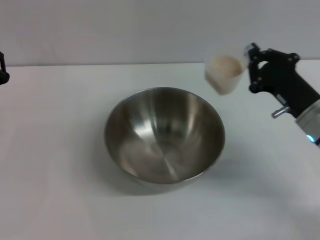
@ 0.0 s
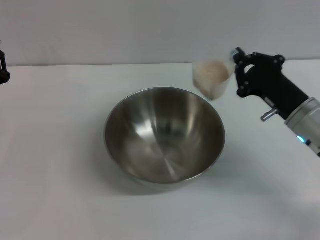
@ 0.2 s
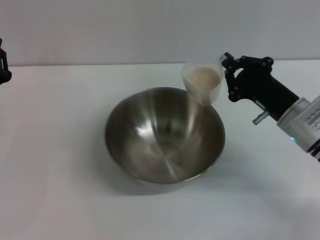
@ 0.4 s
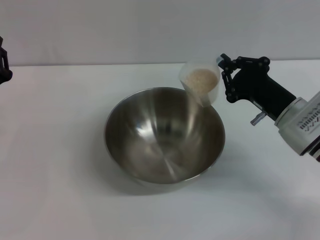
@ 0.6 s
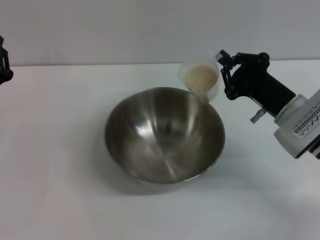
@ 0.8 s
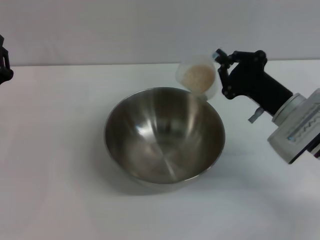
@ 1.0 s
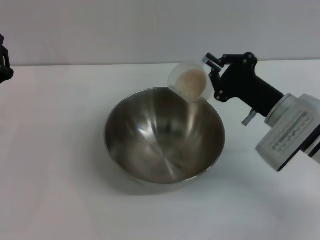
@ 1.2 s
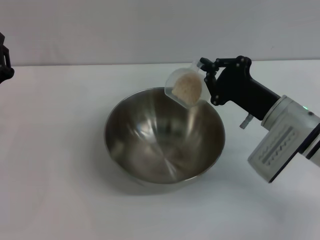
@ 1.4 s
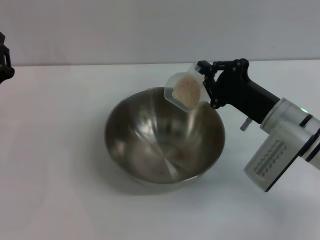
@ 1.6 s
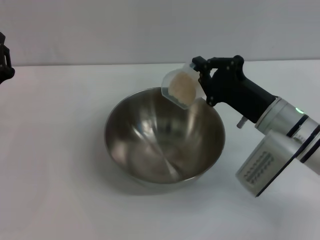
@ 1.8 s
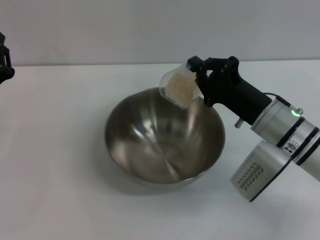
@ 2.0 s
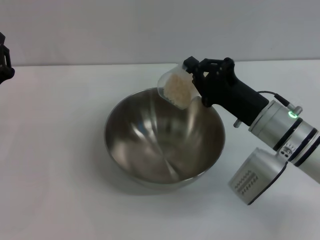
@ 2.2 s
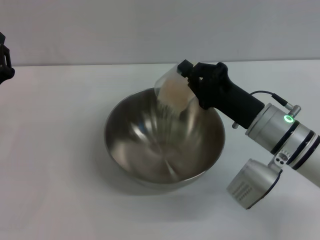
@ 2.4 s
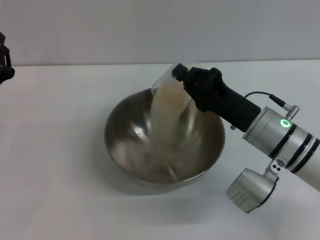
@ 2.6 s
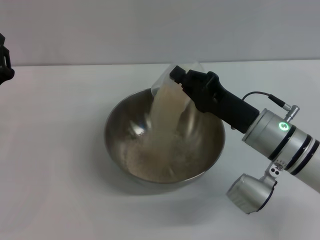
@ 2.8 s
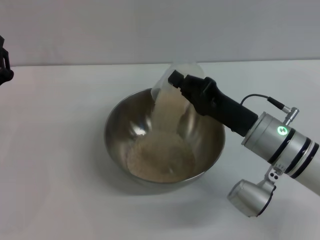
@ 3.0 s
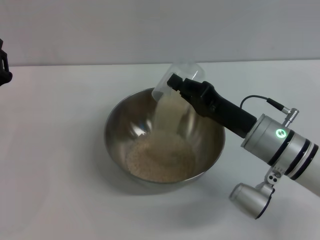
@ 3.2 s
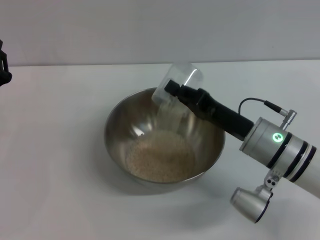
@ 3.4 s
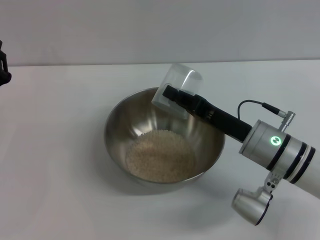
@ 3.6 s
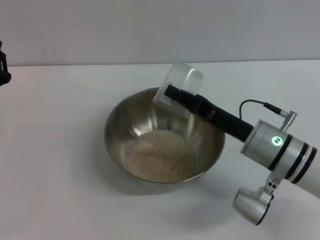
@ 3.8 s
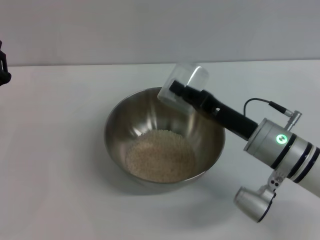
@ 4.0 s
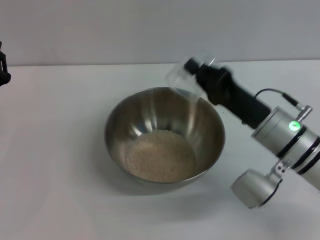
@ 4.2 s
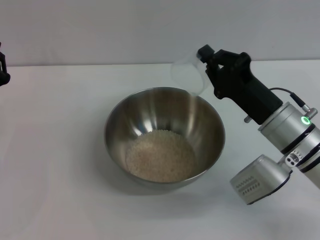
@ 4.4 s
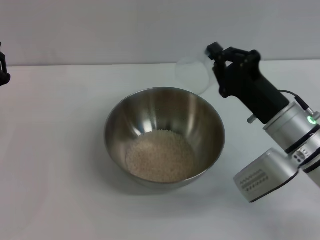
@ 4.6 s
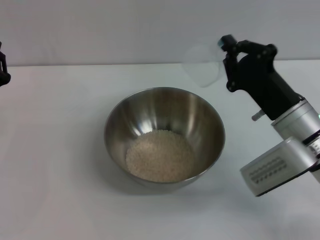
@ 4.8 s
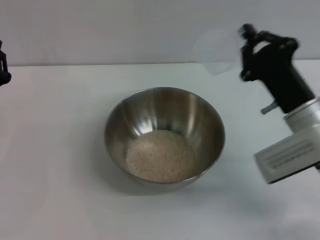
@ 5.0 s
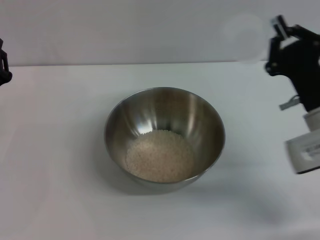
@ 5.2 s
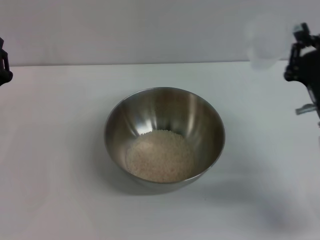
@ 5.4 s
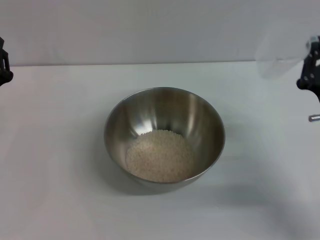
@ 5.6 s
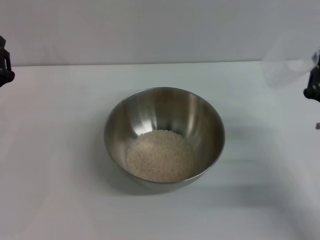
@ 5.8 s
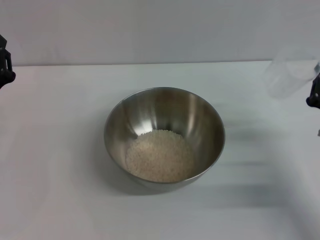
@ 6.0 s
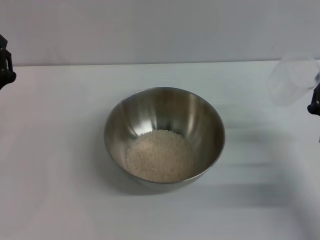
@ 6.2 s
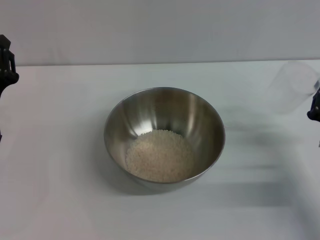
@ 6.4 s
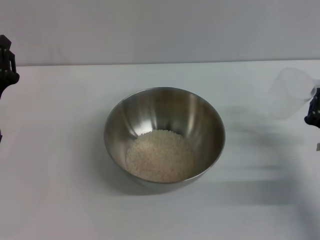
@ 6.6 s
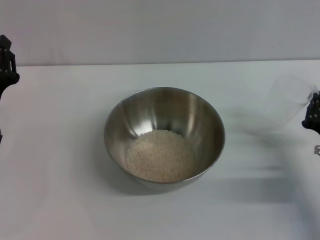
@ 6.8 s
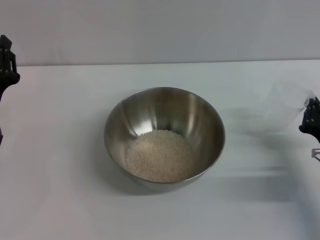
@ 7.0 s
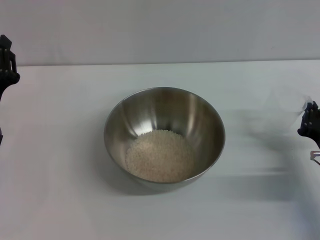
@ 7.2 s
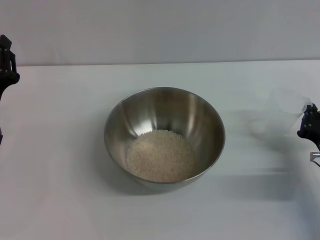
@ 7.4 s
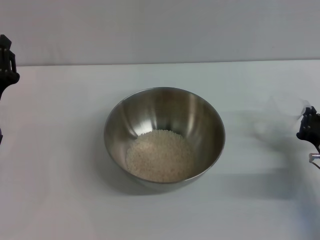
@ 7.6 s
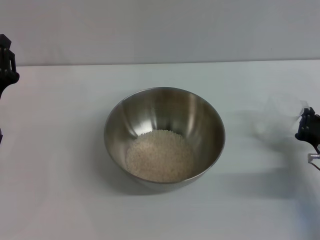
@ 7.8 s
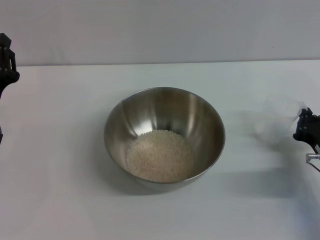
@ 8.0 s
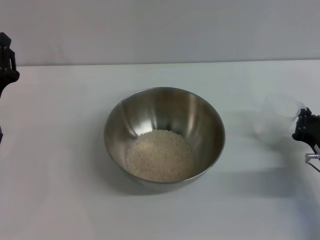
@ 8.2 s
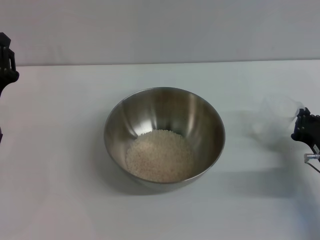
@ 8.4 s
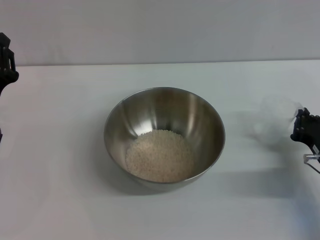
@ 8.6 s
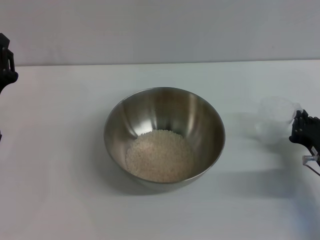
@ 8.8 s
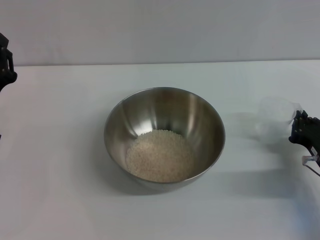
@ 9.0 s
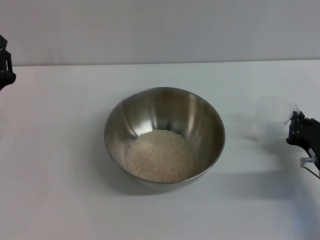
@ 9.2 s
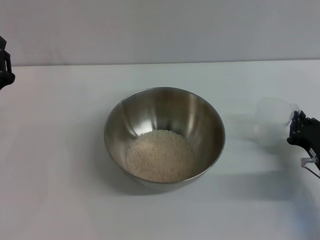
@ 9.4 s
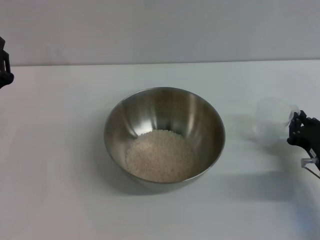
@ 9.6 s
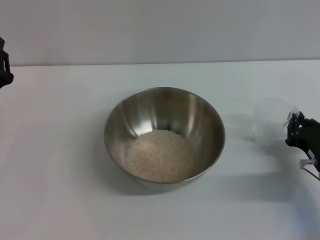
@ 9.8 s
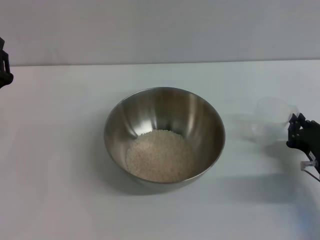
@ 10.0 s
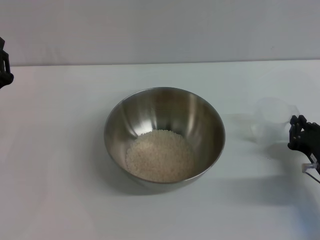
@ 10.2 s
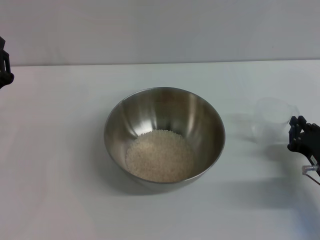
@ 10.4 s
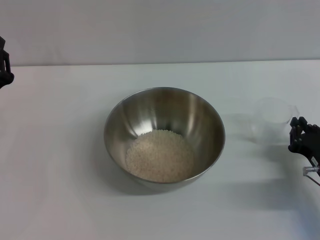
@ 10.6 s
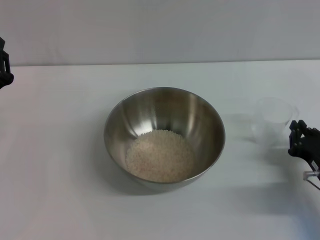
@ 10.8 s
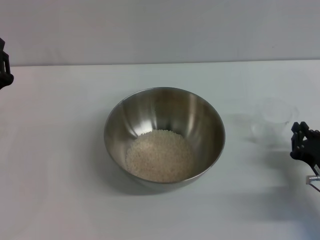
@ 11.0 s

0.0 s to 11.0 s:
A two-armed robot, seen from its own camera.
Task of the whole recording: Place the bowl in the middle of the table with one hand and pour the rice from the grain cup into it with the other hand.
Step, 0.0 to 3.6 s: Pour the rice from the cup into the bowl with the right gripper.
Step, 3.8 to 10.0 s: Place the cup on the table with the right gripper.
4.8 to 6.2 s: The right gripper goes about 10 cm to the right.
6.2 to 7.8 s: The grippers move only a little.
7.8 to 9.4 s: Both grippers stay about where they are.
9.4 to 11.0 s: The grippers move only a little.
